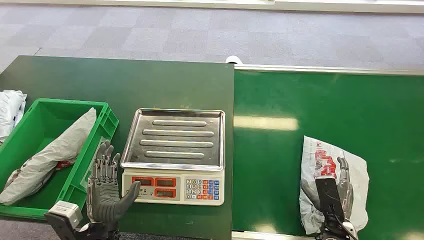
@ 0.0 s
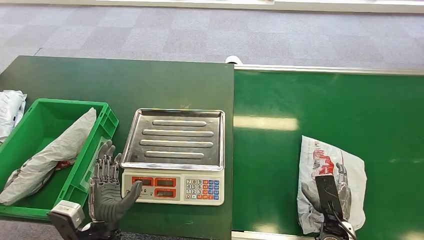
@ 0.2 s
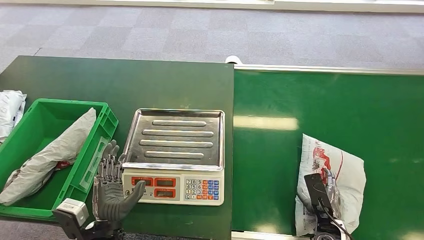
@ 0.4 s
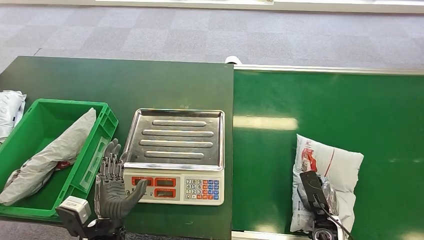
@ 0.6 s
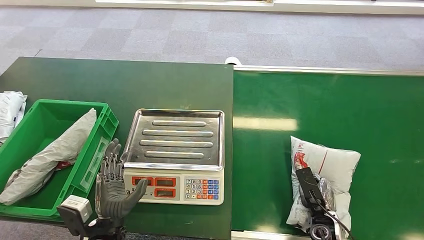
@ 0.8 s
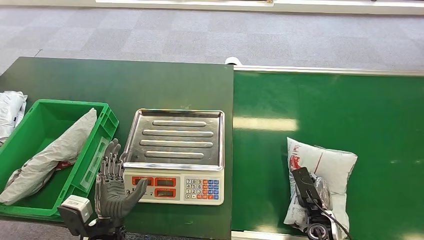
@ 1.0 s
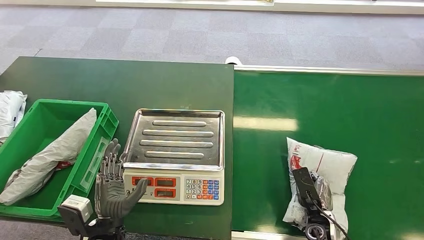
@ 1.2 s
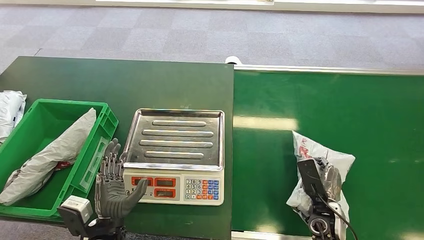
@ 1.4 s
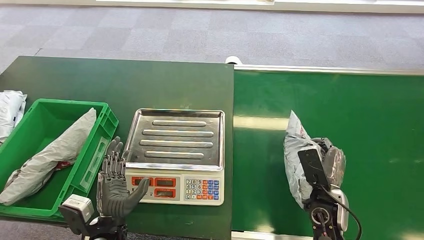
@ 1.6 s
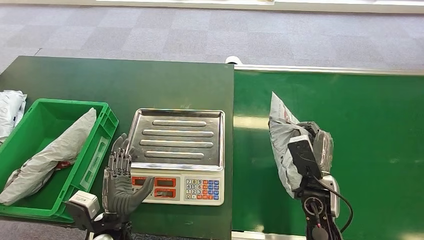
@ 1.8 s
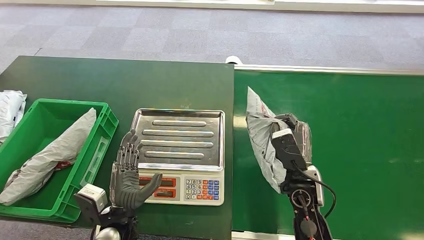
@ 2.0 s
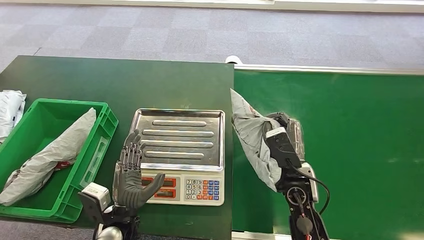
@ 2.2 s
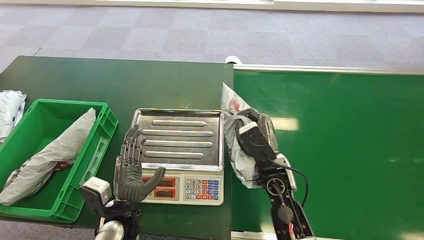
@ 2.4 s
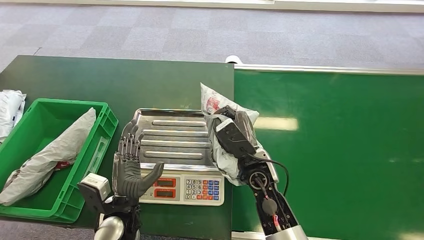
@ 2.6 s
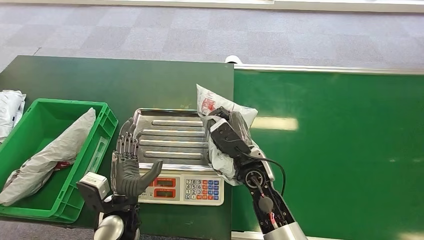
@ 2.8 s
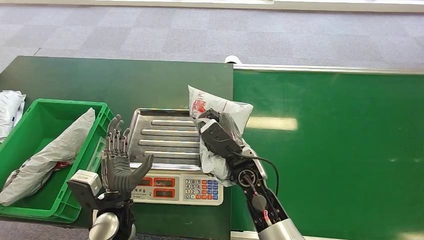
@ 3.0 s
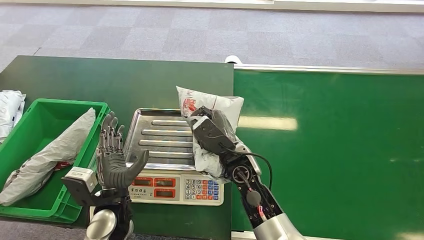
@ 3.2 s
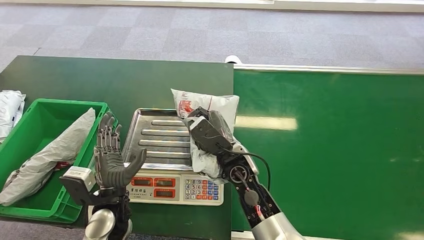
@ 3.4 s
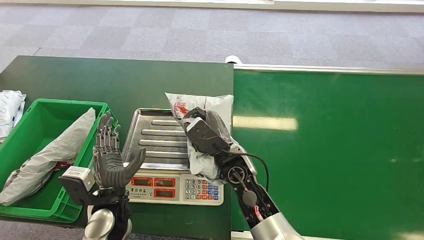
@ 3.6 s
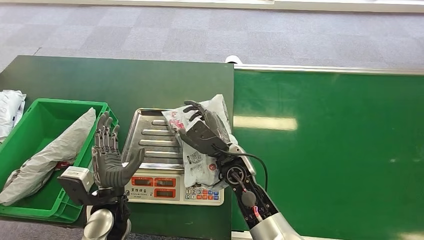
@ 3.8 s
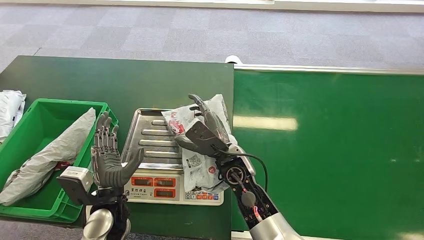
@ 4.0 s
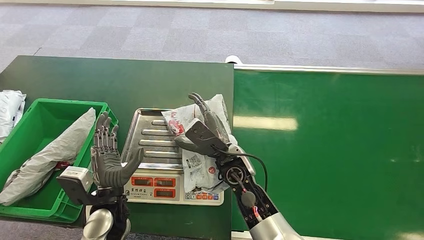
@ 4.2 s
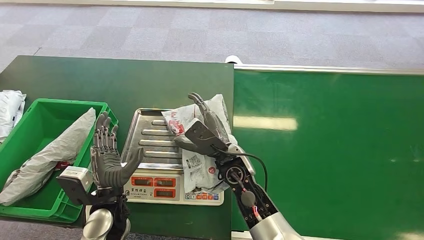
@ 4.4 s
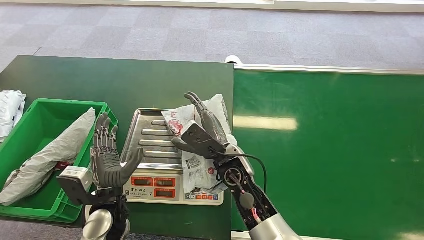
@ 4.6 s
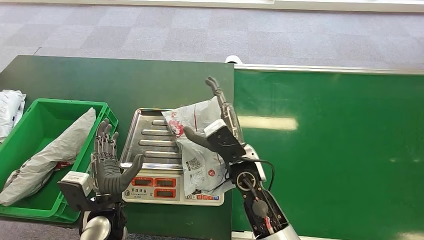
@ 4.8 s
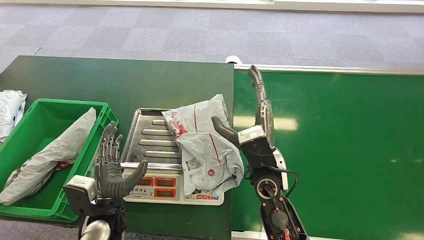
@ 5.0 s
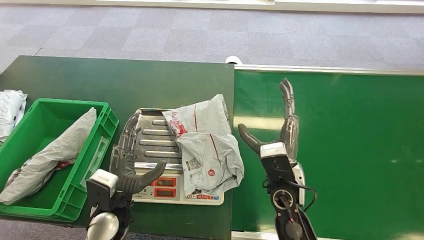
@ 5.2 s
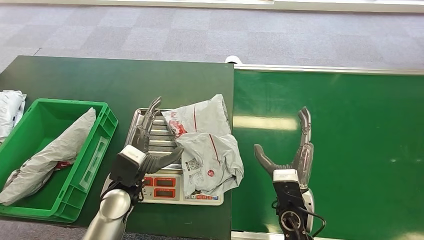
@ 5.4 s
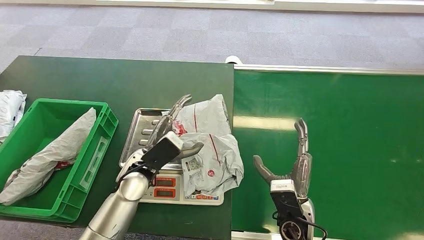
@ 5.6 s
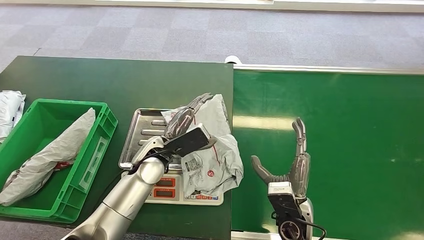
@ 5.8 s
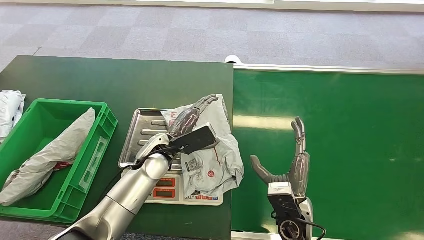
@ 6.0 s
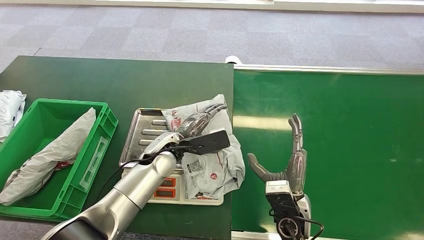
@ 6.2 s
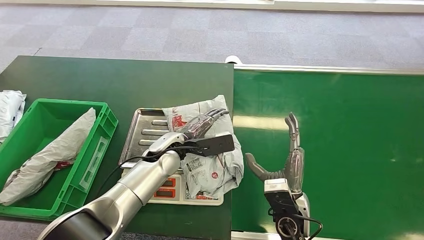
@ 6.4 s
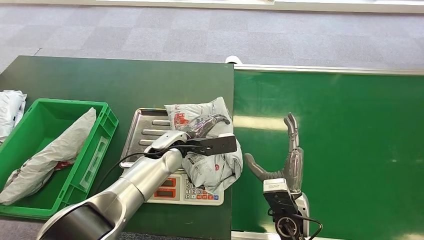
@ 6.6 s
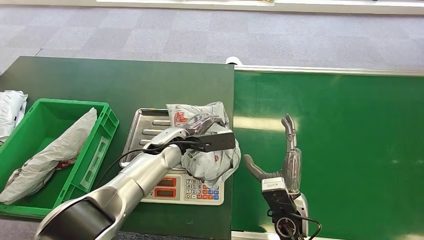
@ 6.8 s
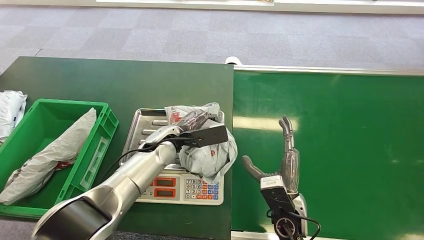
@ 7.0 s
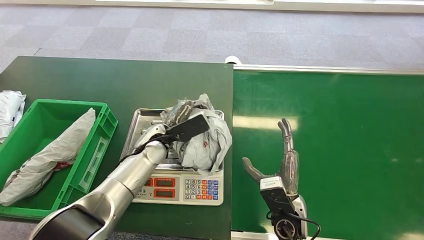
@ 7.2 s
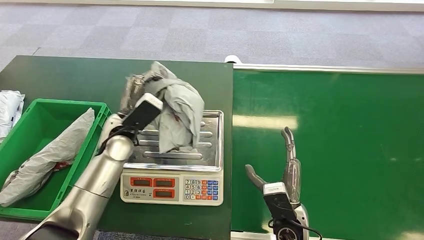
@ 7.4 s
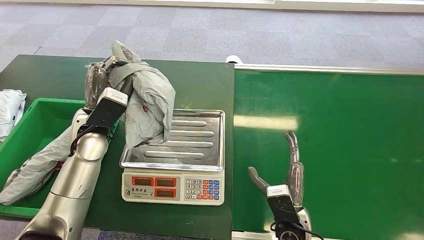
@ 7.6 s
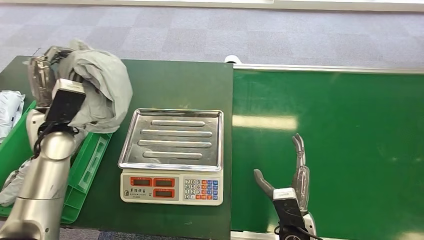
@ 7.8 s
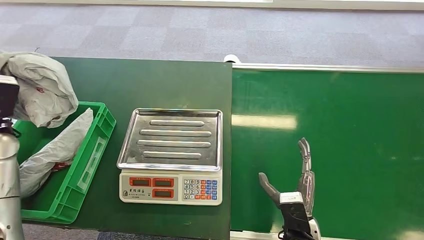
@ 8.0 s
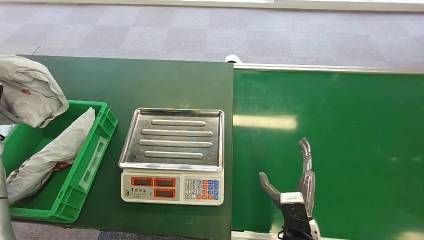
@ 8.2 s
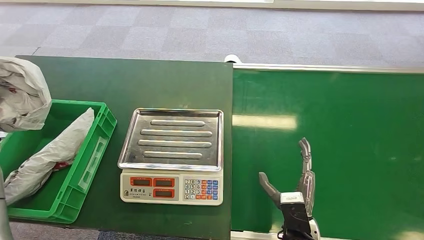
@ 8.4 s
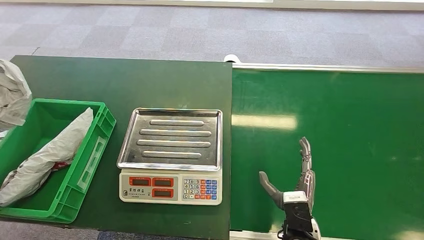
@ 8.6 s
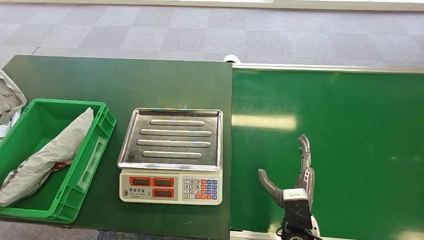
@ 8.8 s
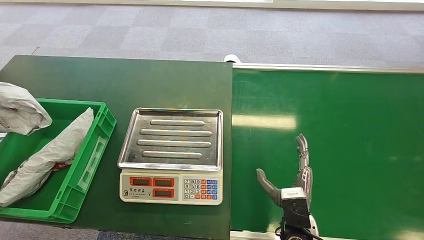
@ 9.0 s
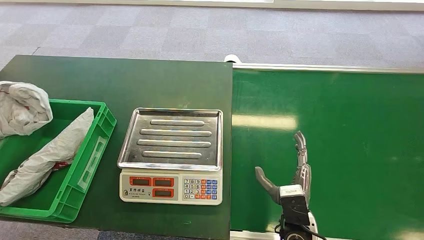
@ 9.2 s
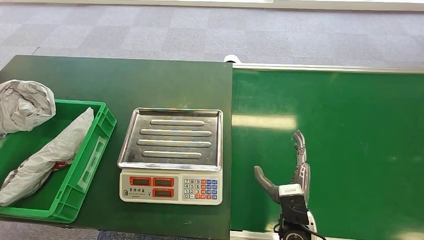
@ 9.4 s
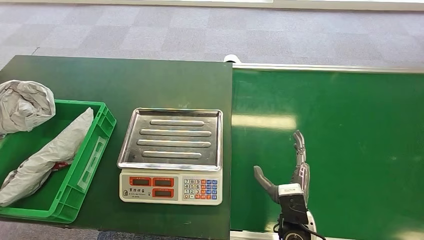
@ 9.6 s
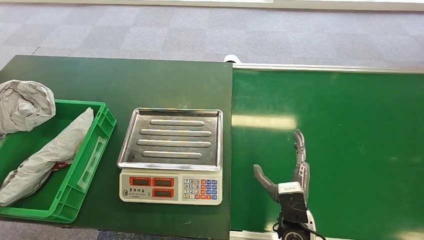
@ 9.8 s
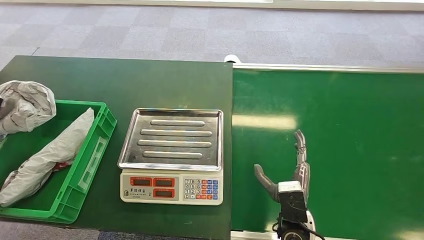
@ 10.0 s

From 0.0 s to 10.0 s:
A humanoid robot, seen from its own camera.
Step, from 0.0 s to 2.2 s: Pick up the package from the conveyor belt.
Step, from 2.4 s to 5.4 s: Place the package onto the inbound machine.
Step, from 5.6 s to 7.8 s: Pick up the package from the inbound machine.
Step, from 8.2 s to 10.0 s: Place the package into the parcel locker.
From 1.4 s to 2.8 s: The left hand changes place by some 5 cm, while the right hand is displaced to the left and upward by approximately 20 cm.
From 2.8 s to 4.2 s: The hands make only small movements.
From 4.2 s to 5.8 s: The right hand is displaced to the right and backward by some 15 cm; the left hand shifts about 15 cm forward, to the right and upward.
From 5.8 s to 7.2 s: The left hand moves about 5 cm.
From 8.6 s to 10.0 s: The left hand moves downward, some 5 cm.
